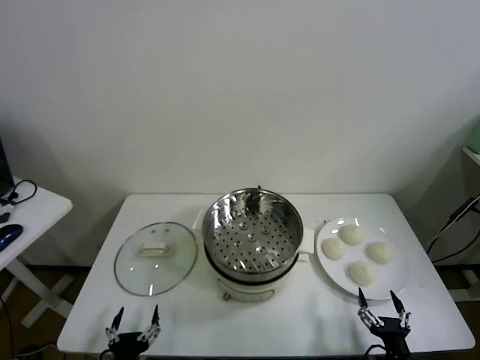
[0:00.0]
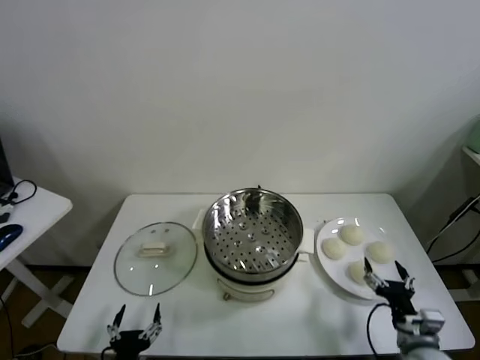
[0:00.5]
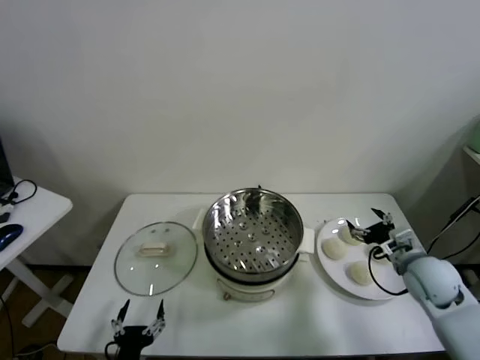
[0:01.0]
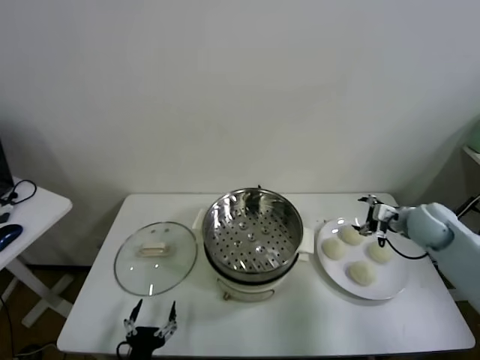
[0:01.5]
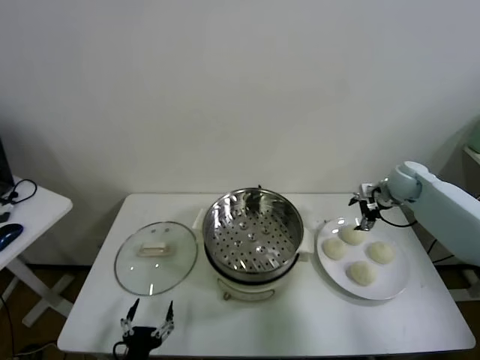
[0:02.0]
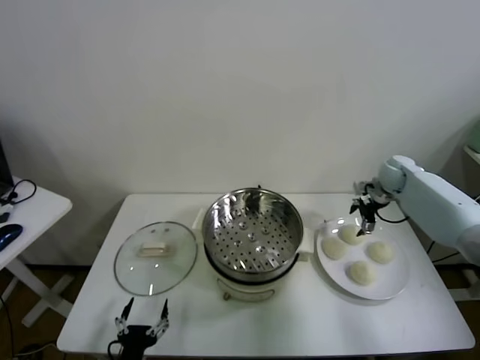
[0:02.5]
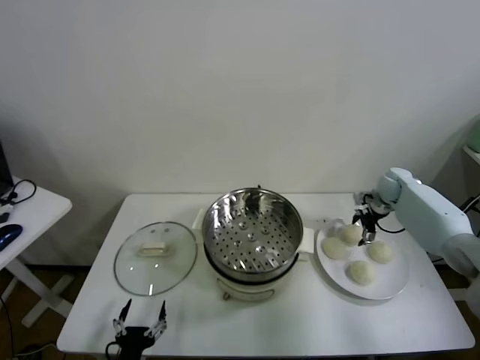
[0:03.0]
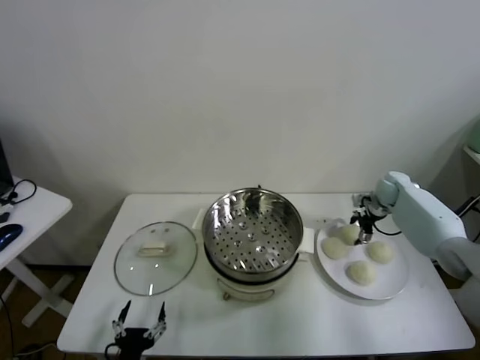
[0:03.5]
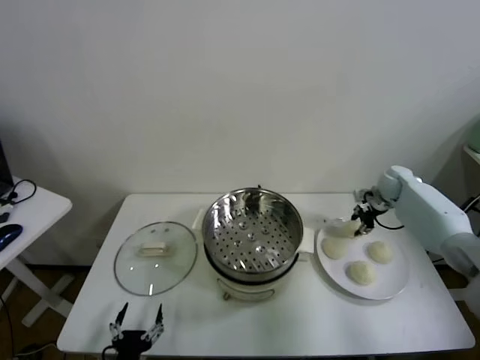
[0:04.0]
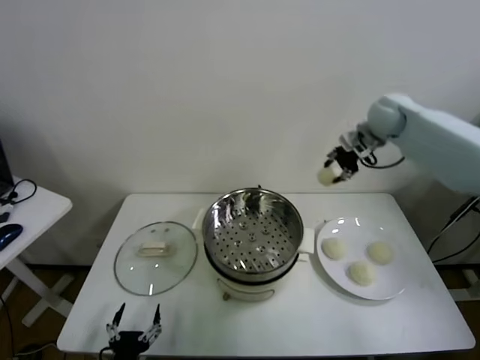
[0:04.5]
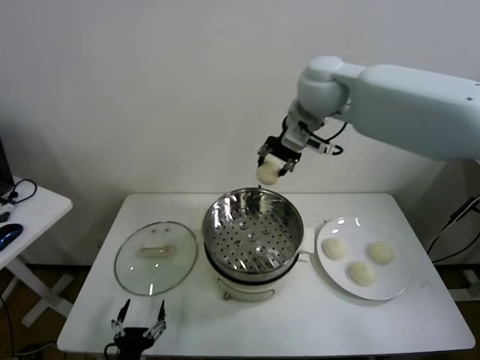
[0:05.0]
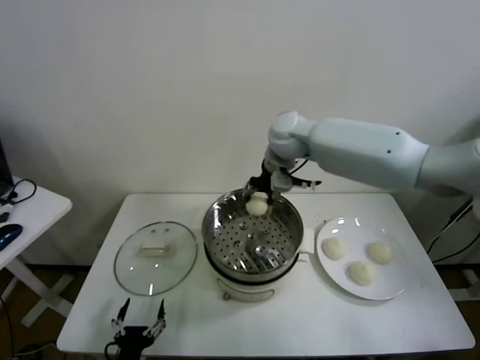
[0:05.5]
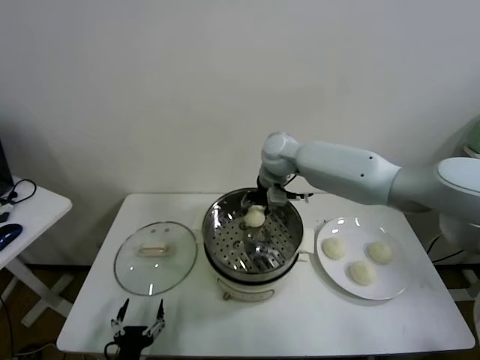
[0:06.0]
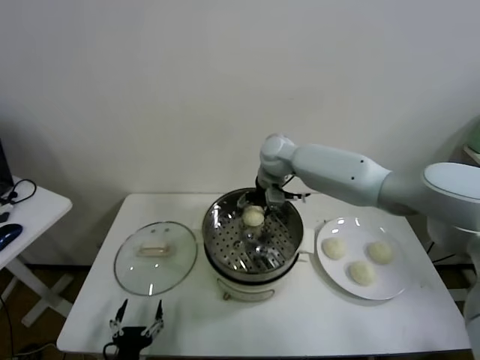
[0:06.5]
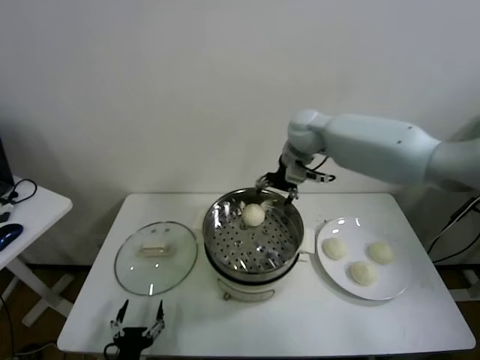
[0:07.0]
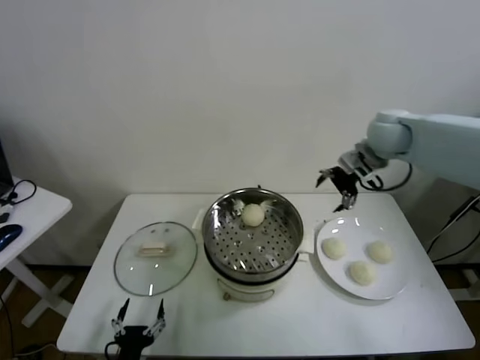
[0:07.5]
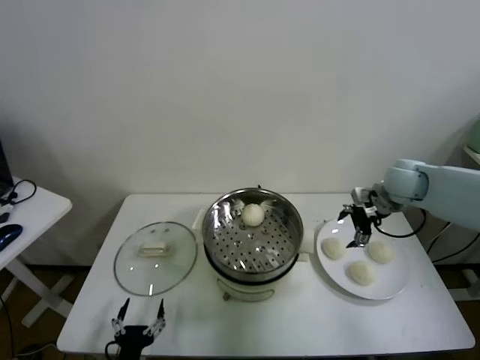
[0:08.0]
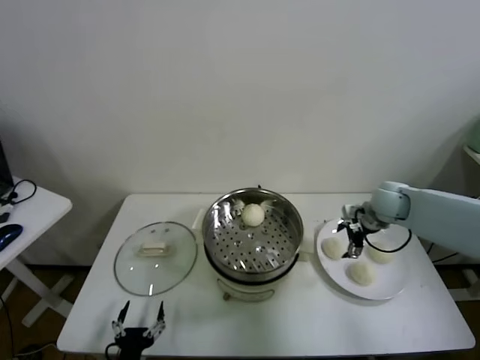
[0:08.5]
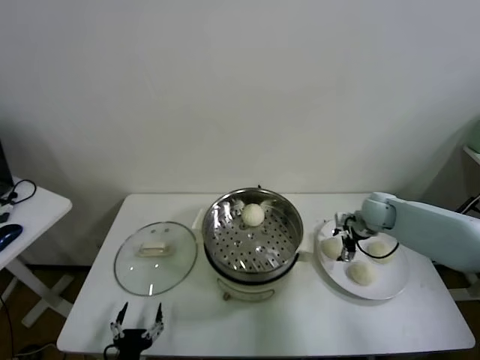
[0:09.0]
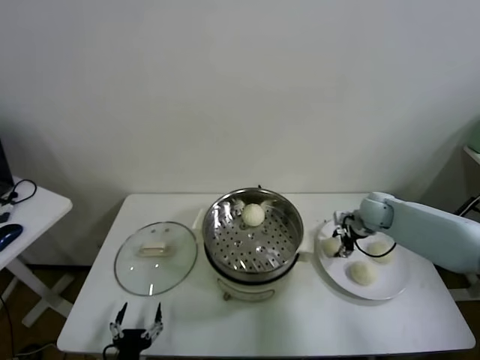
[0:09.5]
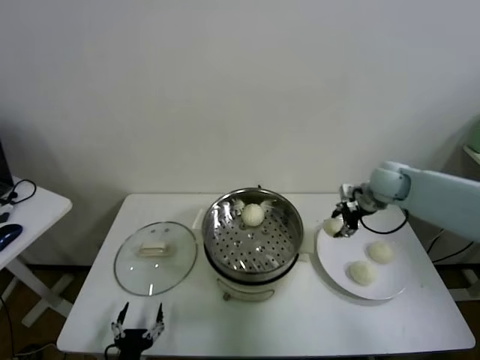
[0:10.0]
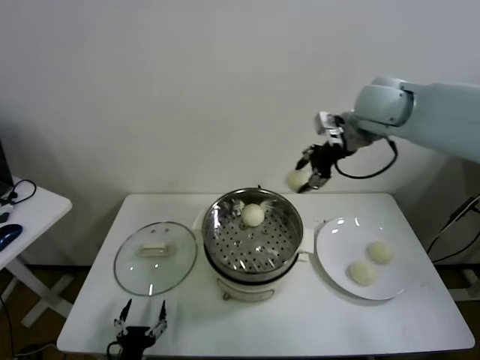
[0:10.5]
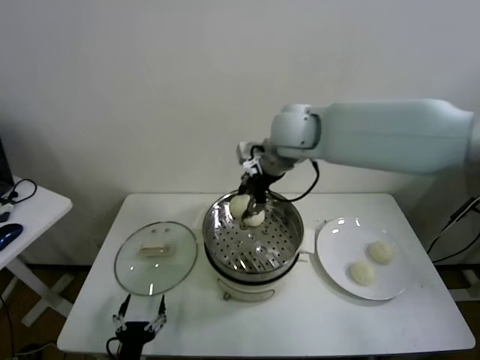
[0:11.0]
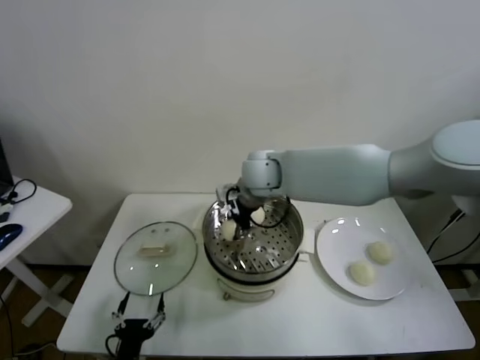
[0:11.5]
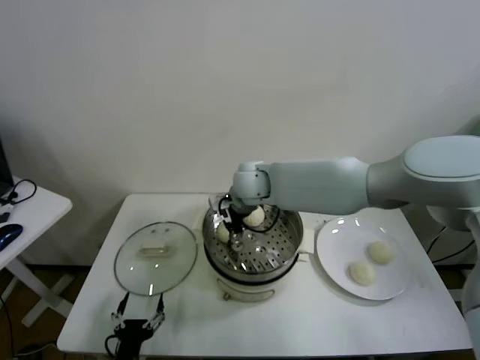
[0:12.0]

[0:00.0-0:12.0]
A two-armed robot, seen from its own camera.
Task of the whole recording: take steamed baozi put them in steamer.
Step, 0:00.0 to 0:03.5: Grasp the baozi in the plate with right gripper.
Step, 0:04.0 to 0:06.5: Place the baozi on the steamer with right gripper.
Step, 0:07.0 to 0:09.5: Grasp the baozi in the plate with right gripper.
0:02.0 to 0:04.0: The right gripper closes up.
0:04.0 to 0:06.0: The right gripper heads to the left, covering roughly 35 cm.
0:06.0 to 0:08.0: The right gripper travels to the right by approximately 30 cm, and opens up.
0:08.0 to 0:10.0: The right gripper travels downward and back again, roughly 10 cm each way, and closes.
0:10.0 to 0:12.0: The right gripper shifts roughly 30 cm to the left, and opens its fingers.

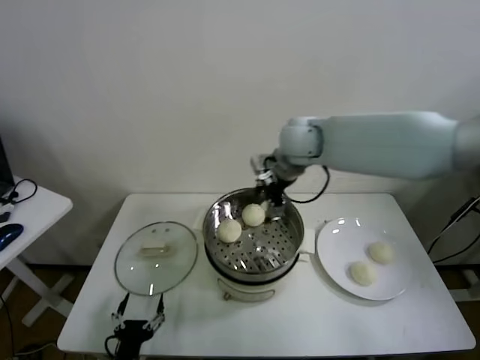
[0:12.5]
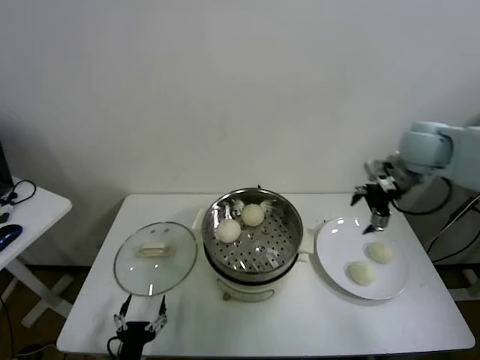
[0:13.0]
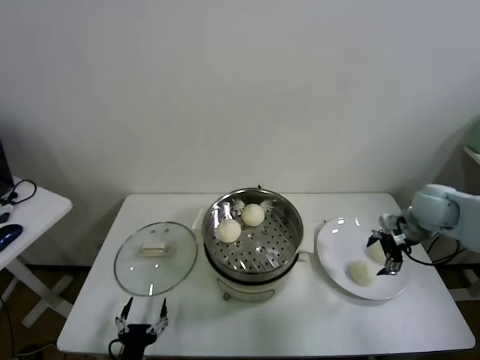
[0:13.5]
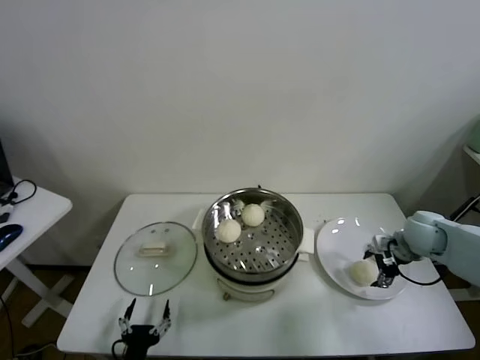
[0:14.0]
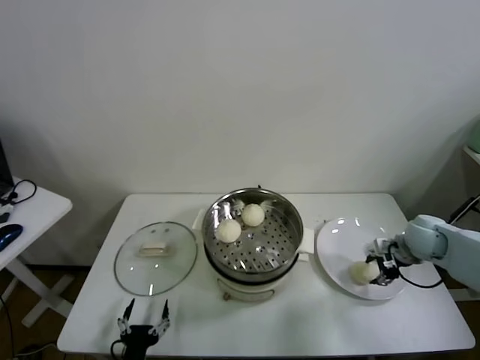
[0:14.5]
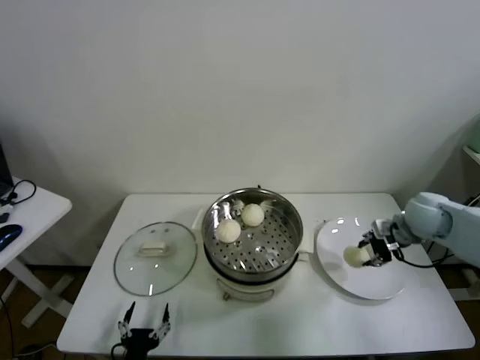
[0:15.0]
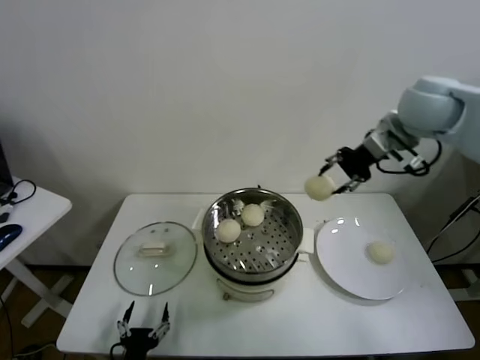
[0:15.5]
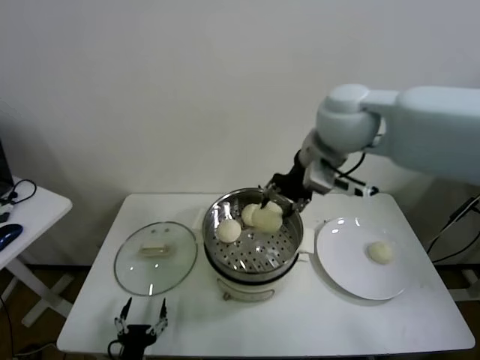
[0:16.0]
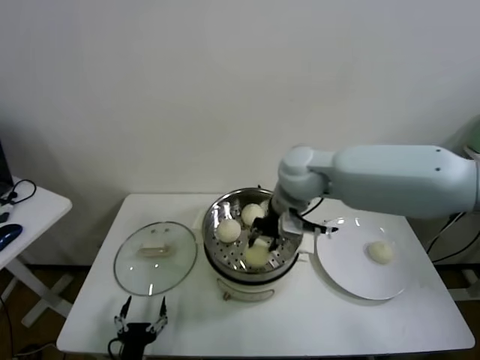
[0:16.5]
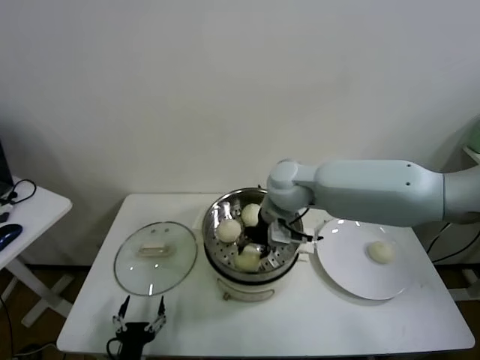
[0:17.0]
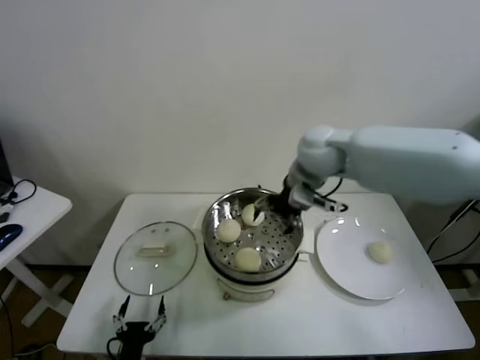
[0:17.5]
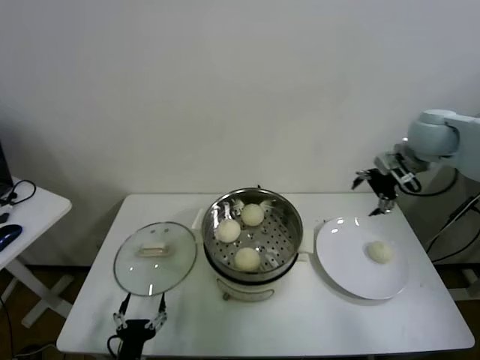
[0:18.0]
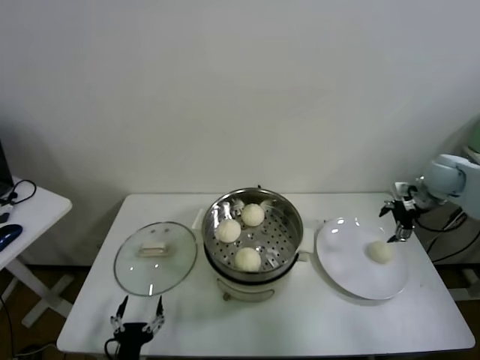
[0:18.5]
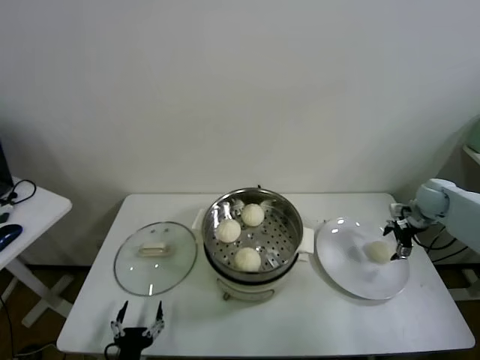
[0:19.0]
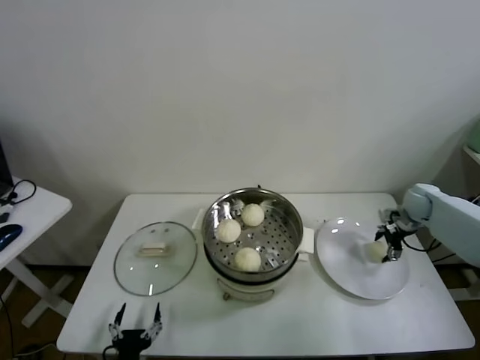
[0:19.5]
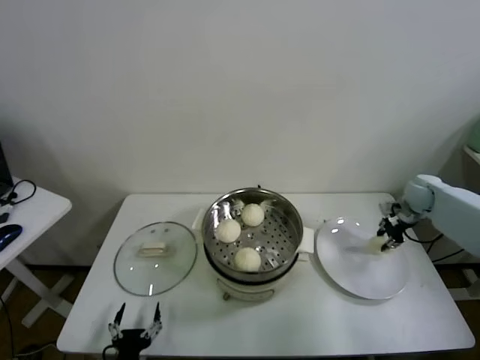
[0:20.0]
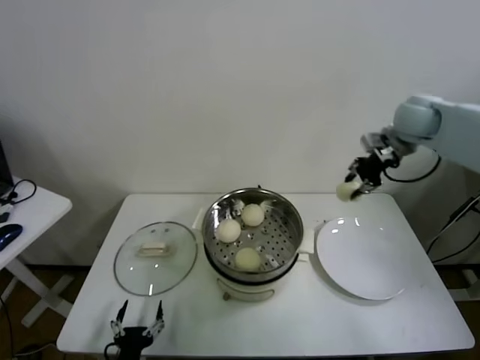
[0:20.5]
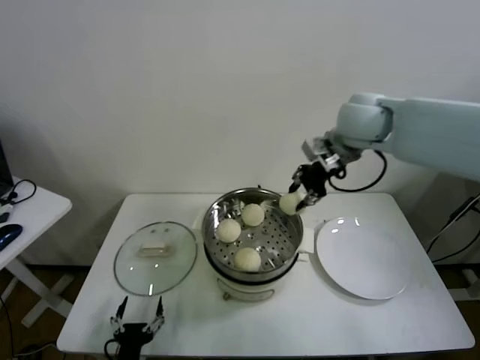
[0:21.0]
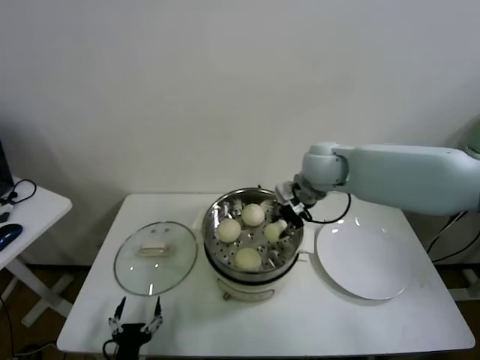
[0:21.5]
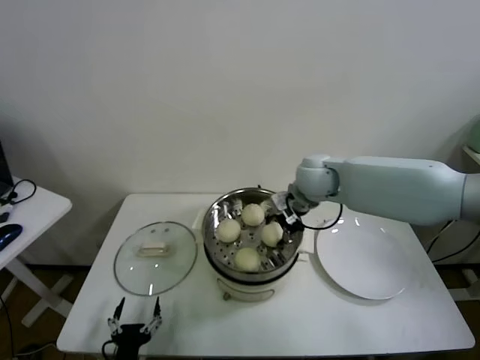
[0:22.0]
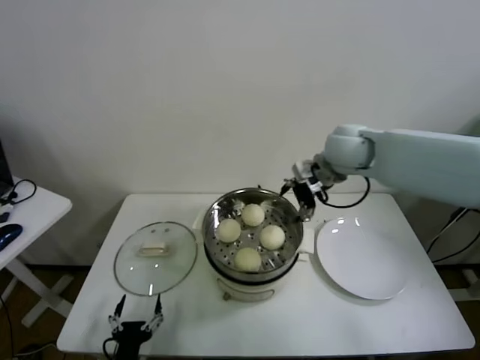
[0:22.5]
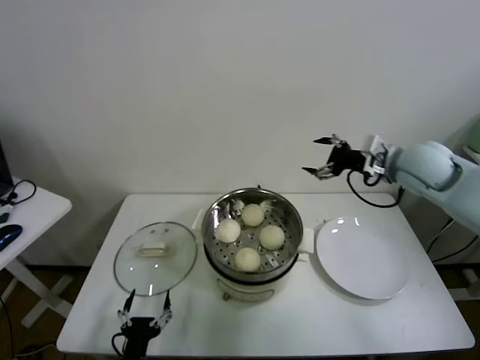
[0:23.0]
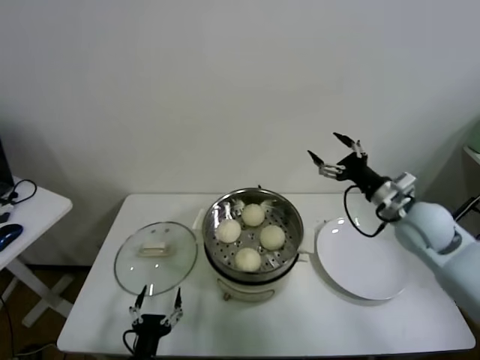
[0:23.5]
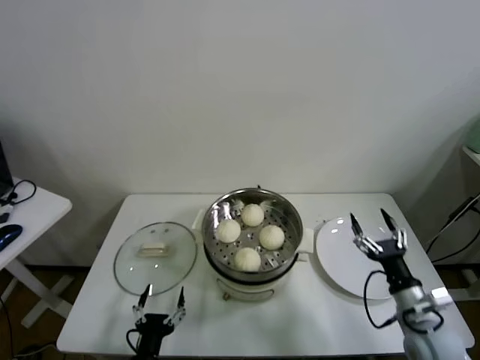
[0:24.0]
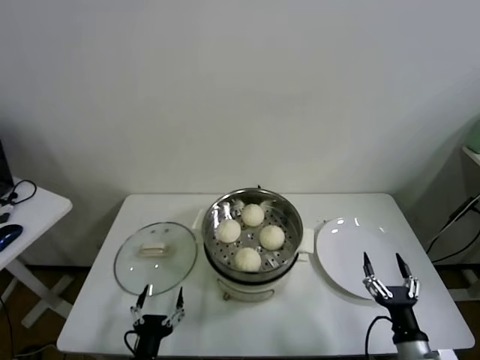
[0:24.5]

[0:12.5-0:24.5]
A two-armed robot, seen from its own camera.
Task of the whole recording: take steamed baozi put them in steamer.
Step, 0:12.5 to 0:14.5: Grasp the baozi in the plate with right gripper.
Step, 0:15.0 to 0:17.0: Place the baozi on the steamer with right gripper.
Step, 0:17.5 to 0:19.5: Grasp the baozi in the plate with right gripper.
Step, 0:20.0 to 0:22.0: Place the baozi on the steamer with right gripper.
0:12.5 to 0:14.5: The right gripper heads to the right and downward, covering about 35 cm, and closes.
0:14.5 to 0:16.5: The right gripper is displaced to the left and upward by roughly 35 cm.
0:16.5 to 0:18.5: The right gripper moves to the right, about 35 cm, and opens.
0:18.5 to 0:20.5: The right gripper heads upward and to the left, covering roughly 15 cm, and closes its fingers.
0:20.5 to 0:22.5: The right gripper shifts approximately 15 cm to the left, and opens.
0:22.5 to 0:24.5: The right gripper goes about 50 cm backward and downward.
